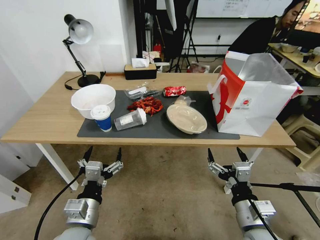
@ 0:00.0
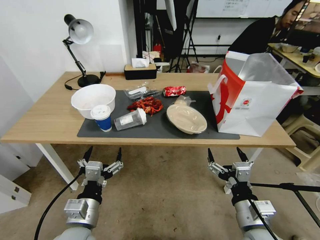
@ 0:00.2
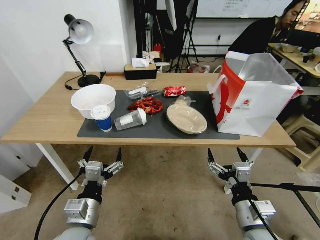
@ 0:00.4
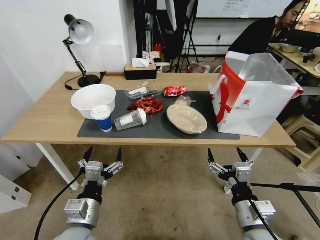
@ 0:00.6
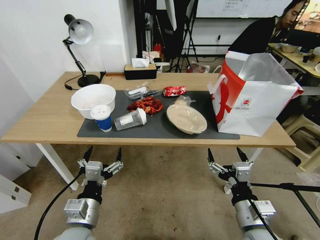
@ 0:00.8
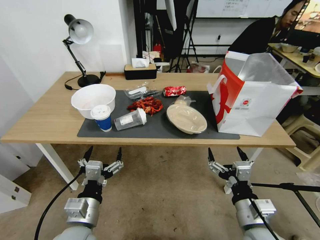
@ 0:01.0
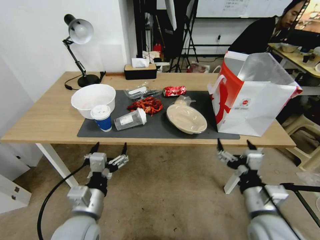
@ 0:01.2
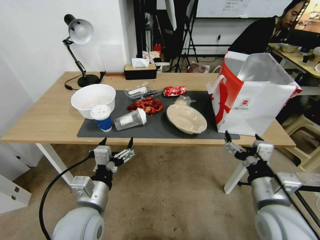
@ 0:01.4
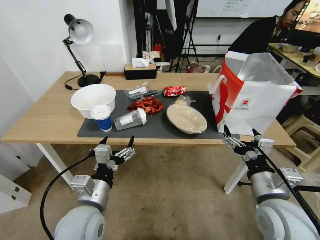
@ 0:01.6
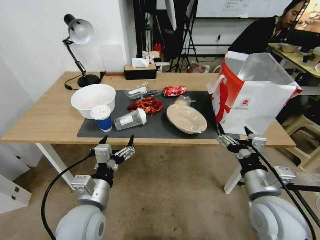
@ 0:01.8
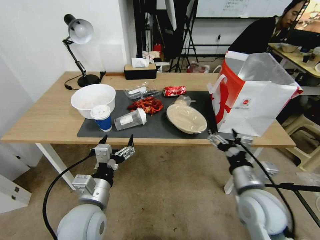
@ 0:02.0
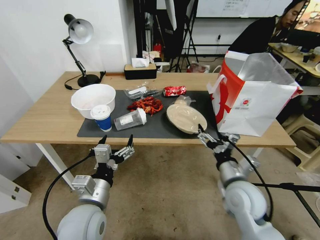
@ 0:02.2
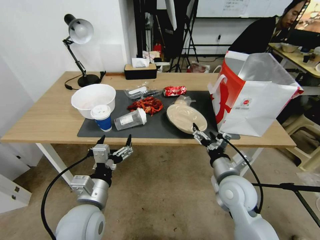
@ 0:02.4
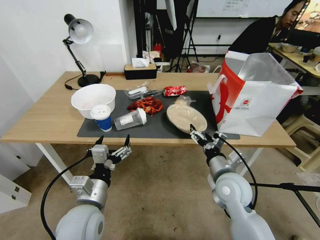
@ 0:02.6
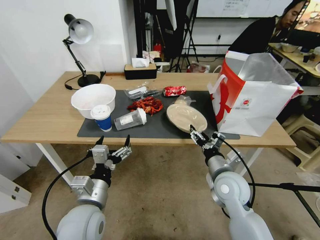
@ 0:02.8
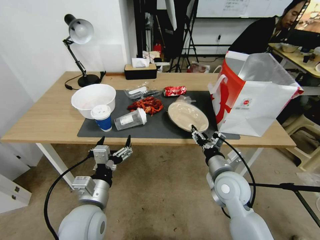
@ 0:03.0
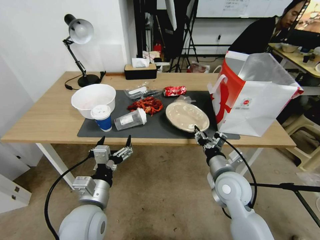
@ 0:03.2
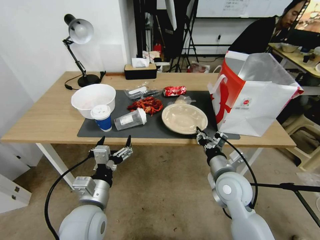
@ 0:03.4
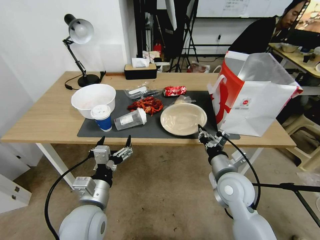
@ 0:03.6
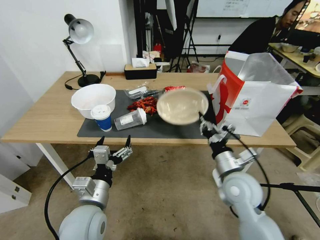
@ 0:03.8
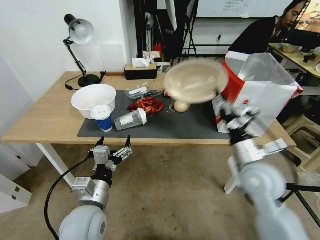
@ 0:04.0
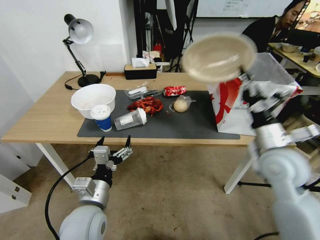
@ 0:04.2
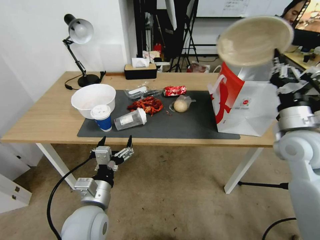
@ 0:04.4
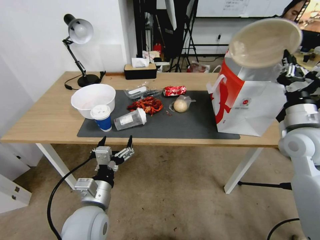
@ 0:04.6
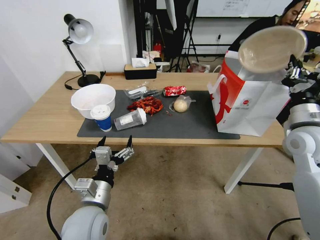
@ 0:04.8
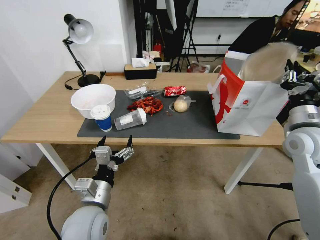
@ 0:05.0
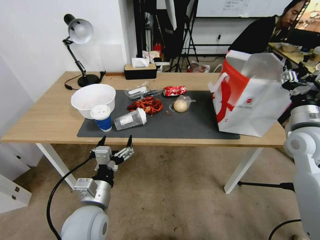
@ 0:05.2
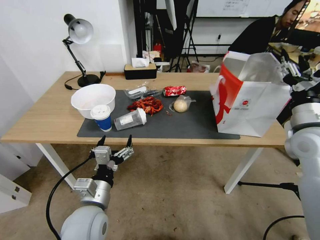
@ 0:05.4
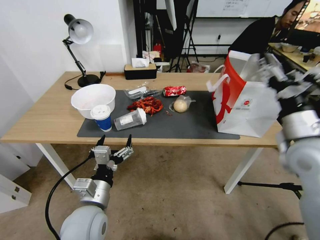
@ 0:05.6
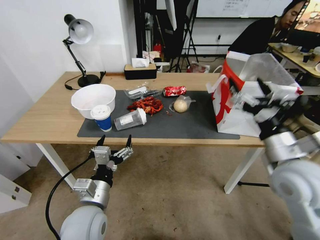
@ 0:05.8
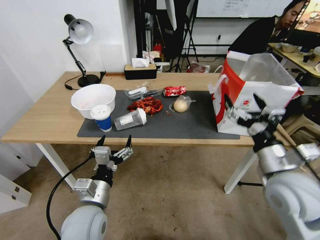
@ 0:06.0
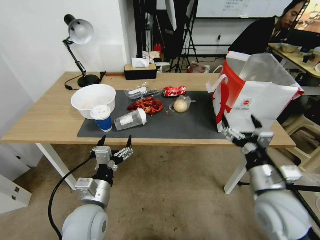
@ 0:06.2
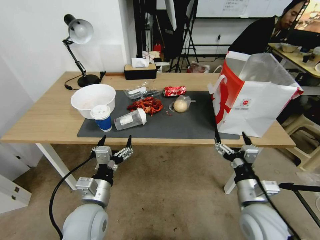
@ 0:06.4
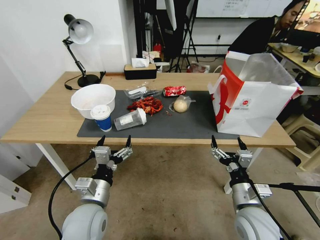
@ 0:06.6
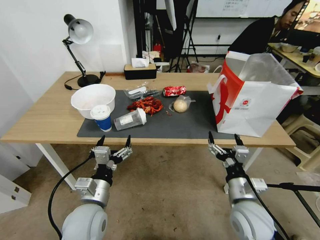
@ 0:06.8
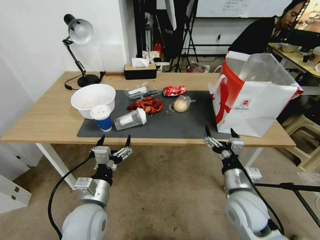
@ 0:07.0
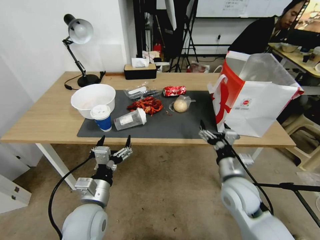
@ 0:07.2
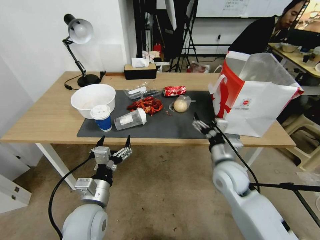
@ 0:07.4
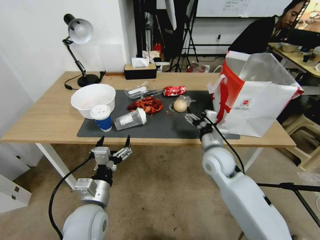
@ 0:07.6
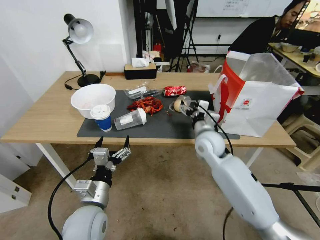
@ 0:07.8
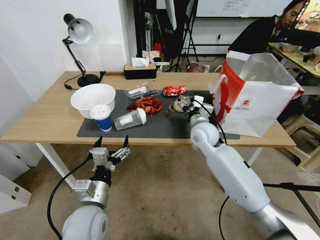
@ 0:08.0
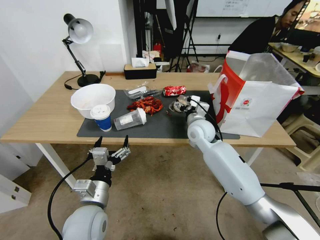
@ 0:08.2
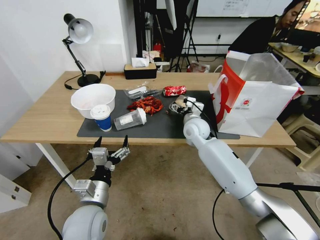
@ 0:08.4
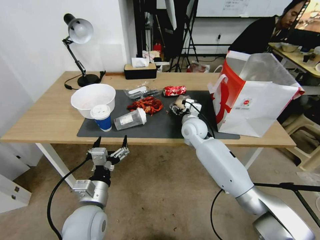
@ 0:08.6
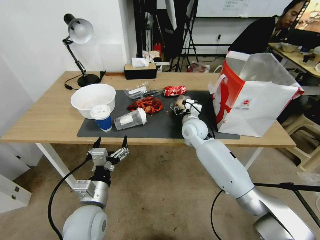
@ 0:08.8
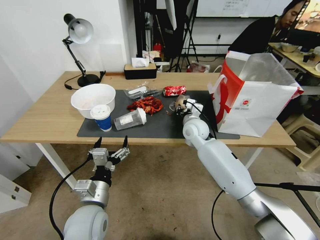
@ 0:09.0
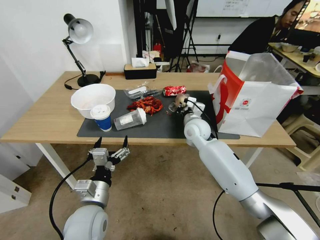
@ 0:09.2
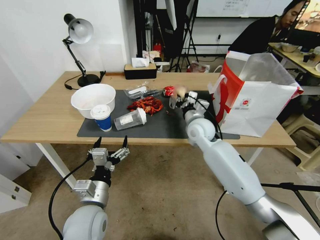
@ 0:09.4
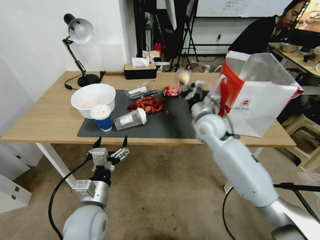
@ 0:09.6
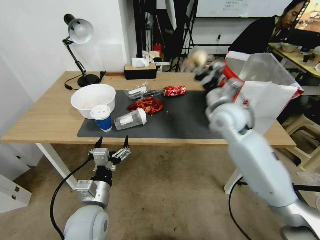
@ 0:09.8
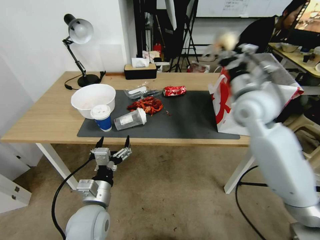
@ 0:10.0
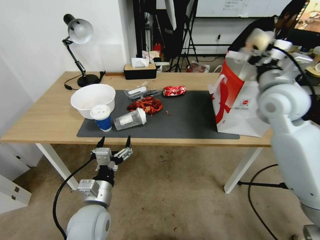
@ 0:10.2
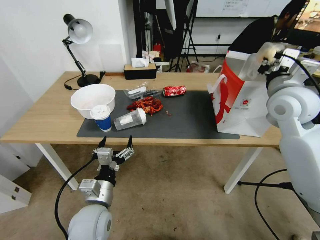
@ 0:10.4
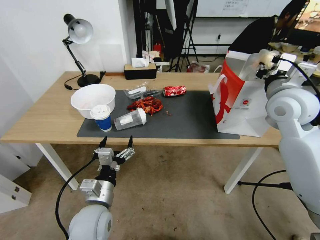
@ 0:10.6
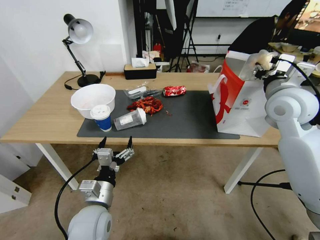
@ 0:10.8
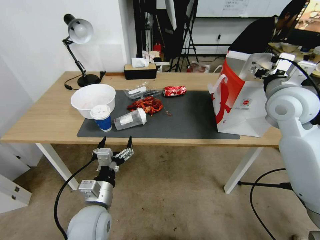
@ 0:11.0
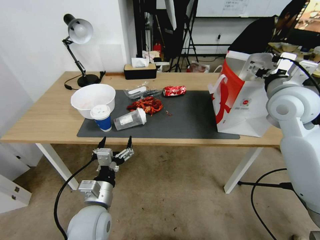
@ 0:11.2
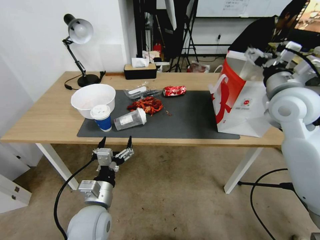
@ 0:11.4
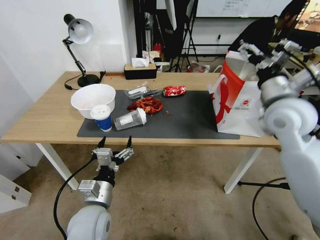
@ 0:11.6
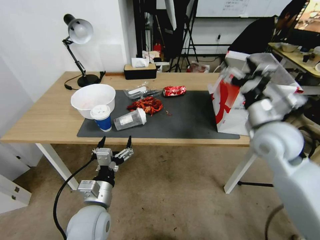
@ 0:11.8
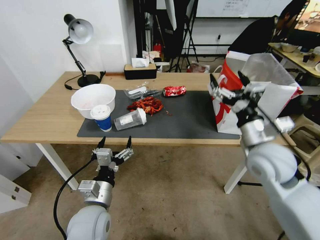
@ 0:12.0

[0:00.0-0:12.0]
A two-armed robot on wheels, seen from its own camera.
0:01.6 to 0:03.0: The right gripper moves forward, downward and to the left, approximately 15 cm, and closes.
0:03.0 to 0:04.4: The right gripper shifts about 20 cm upward and to the right, and closes its fingers.
0:04.4 to 0:06.0: The right gripper shifts some 15 cm backward, to the left and downward, and opens its fingers.
0:06.0 to 0:07.6: The right gripper is displaced forward, to the left and downward by about 20 cm.
0:07.6 to 0:09.0: The right gripper is displaced forward by some 10 cm, and closes its fingers.
0:09.0 to 0:10.4: The right gripper heads upward, to the right and backward, covering some 30 cm.
0:10.4 to 0:12.0: The right gripper shifts roughly 15 cm downward, backward and to the left, and opens up.

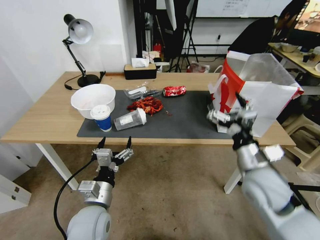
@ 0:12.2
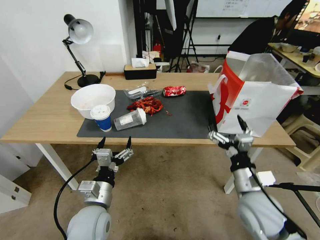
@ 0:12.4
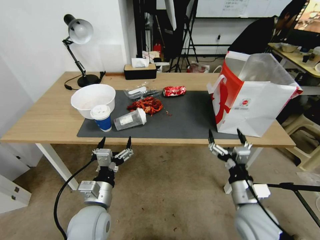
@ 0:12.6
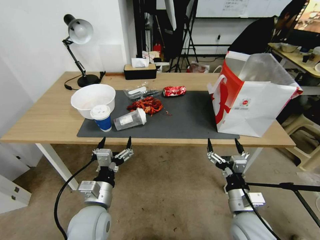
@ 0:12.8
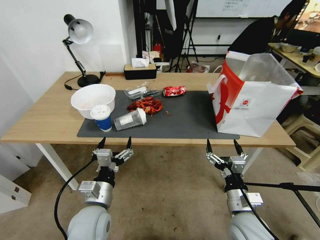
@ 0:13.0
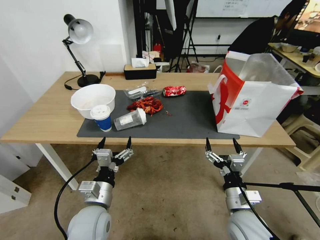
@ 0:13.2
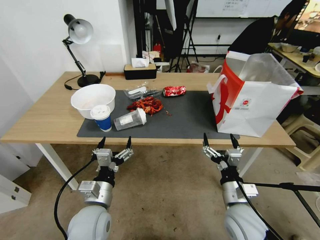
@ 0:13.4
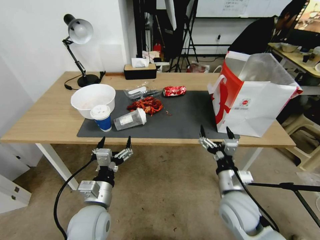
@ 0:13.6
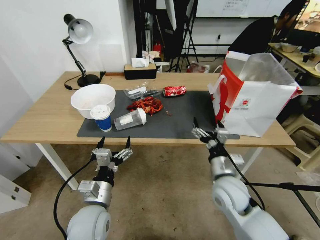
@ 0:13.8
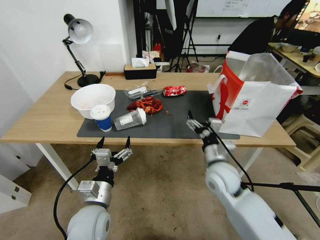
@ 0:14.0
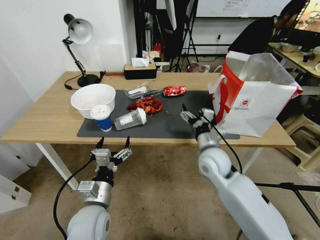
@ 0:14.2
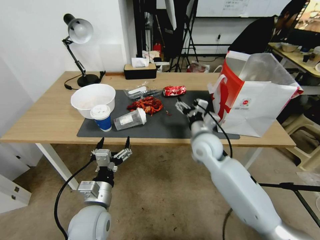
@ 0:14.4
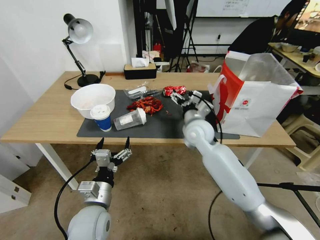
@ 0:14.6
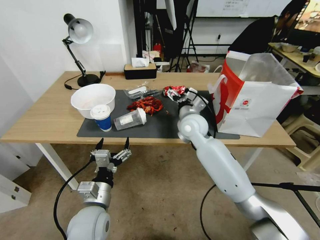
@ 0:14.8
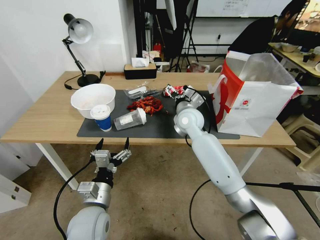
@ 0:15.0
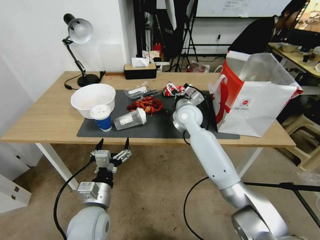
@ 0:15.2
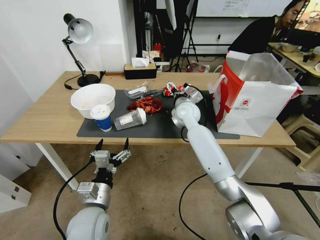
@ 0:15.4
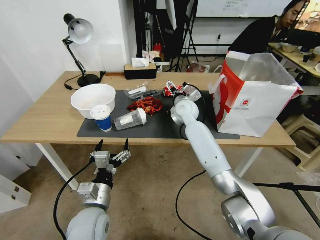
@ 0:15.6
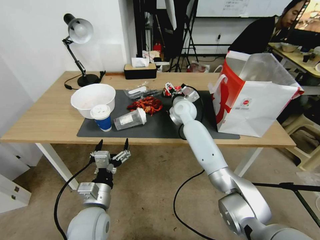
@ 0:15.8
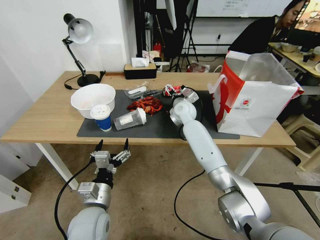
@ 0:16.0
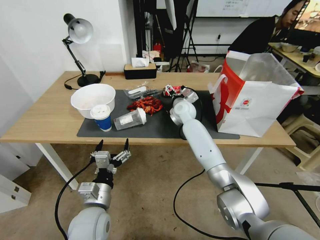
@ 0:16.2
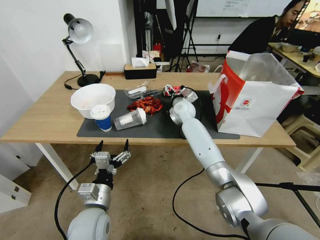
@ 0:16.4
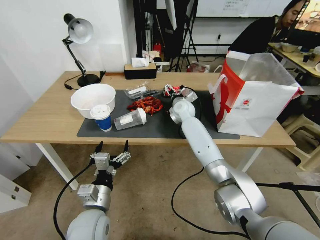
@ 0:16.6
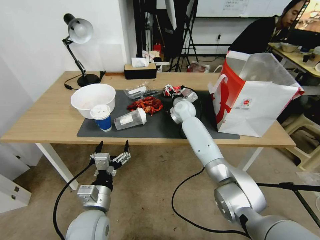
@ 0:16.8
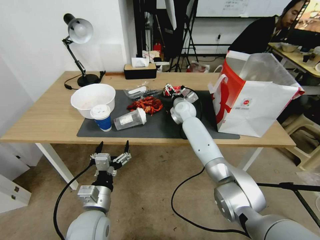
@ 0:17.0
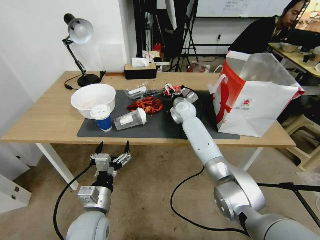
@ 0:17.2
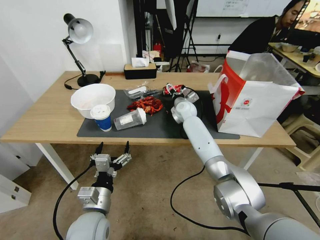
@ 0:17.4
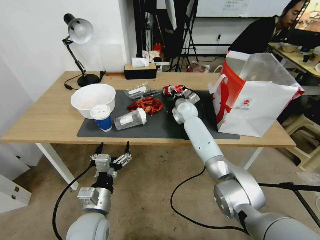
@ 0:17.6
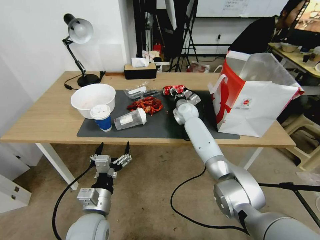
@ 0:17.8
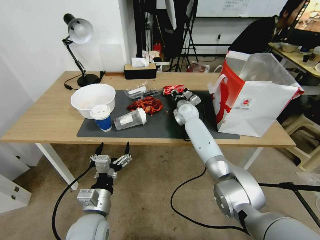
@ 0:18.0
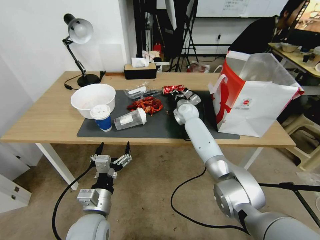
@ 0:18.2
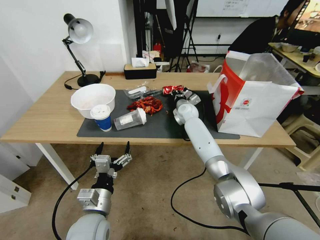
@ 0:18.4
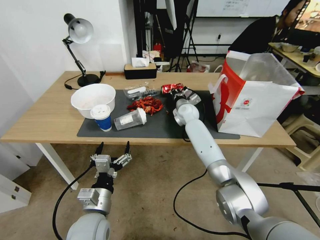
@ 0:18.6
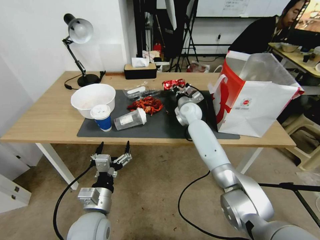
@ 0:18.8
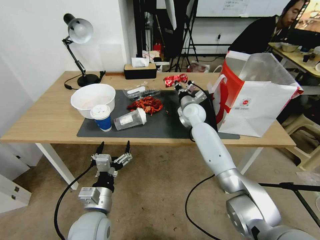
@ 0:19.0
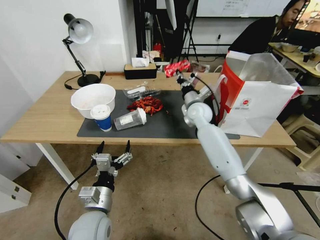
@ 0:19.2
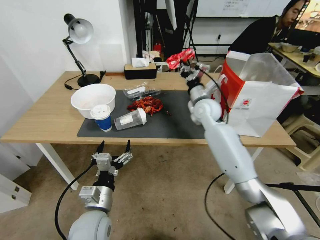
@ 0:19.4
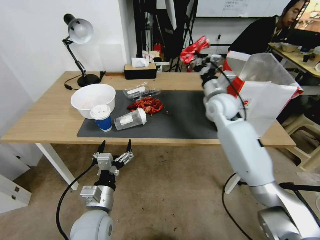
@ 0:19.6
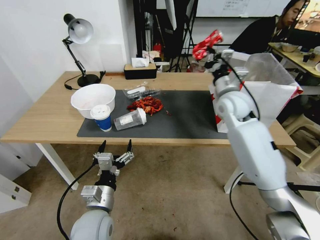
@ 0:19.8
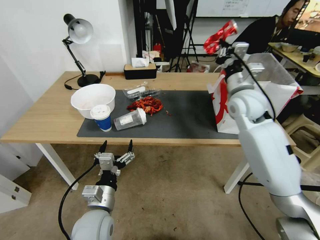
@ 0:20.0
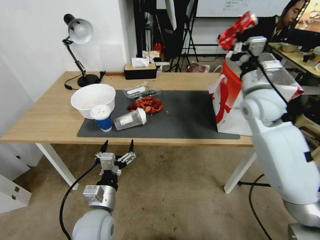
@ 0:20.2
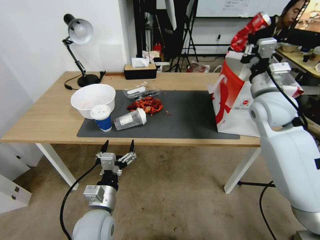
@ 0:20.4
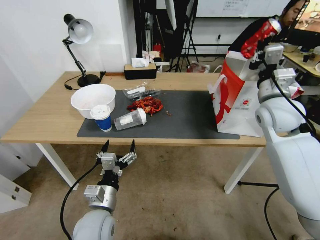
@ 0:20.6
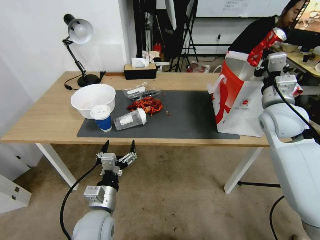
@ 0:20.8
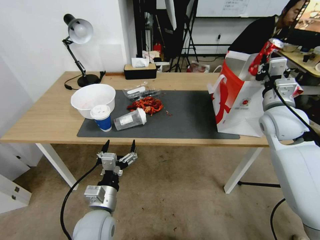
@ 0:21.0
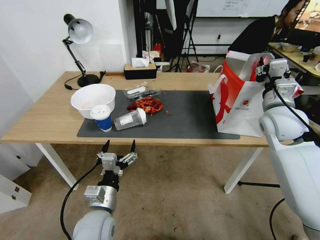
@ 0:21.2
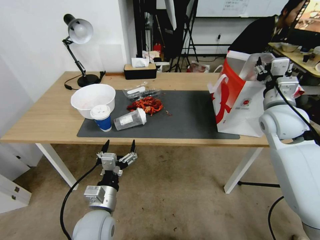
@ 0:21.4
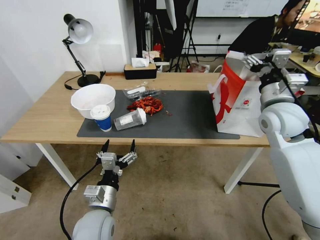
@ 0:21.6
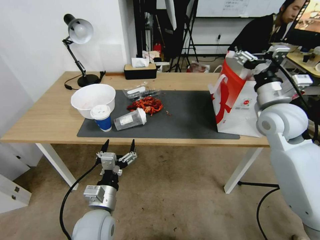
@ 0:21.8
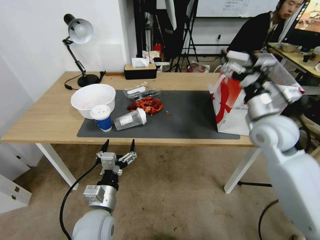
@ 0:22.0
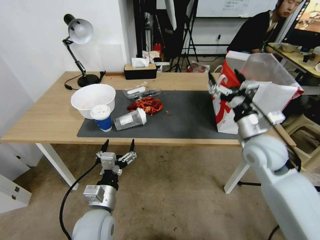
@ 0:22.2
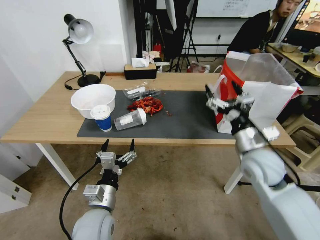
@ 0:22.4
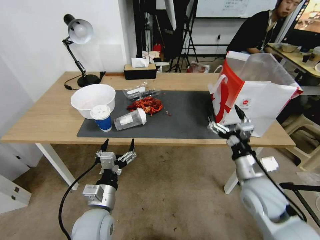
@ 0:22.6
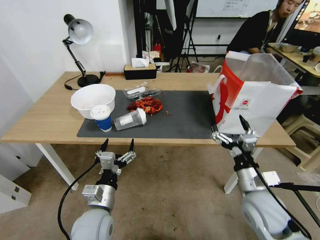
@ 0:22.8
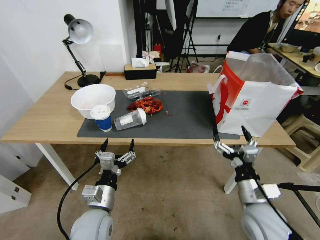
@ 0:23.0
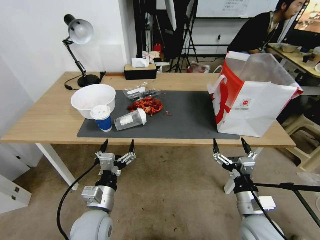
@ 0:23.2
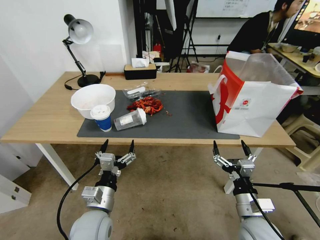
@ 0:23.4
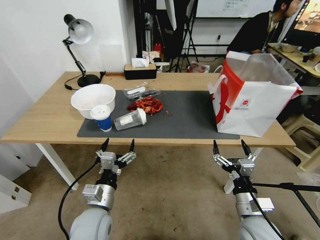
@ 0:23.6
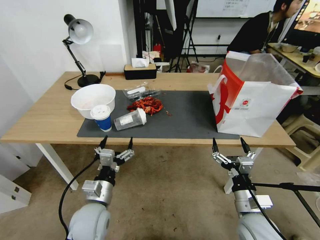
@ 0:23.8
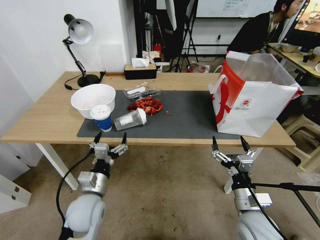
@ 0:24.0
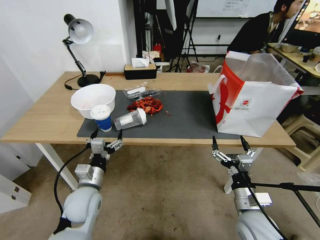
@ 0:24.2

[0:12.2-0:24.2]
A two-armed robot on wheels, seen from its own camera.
0:12.2 to 0:13.8: The right gripper shifts roughly 10 cm downward and to the left.
0:13.8 to 0:15.2: The right gripper goes some 25 cm forward and to the left.
0:15.2 to 0:16.6: The right gripper heads forward, covering roughly 10 cm.
0:16.6 to 0:18.2: The right gripper closes.
0:18.2 to 0:19.8: The right gripper is displaced upward, backward and to the right by approximately 25 cm.
0:19.8 to 0:21.2: The right gripper travels to the right and backward by about 10 cm, and opens up.
0:21.2 to 0:22.6: The right gripper shifts some 20 cm backward, downward and to the left, and opens up.
0:22.6 to 0:24.2: The right gripper heads downward and backward, covering some 10 cm; the left gripper moves forward and to the left, about 10 cm.
